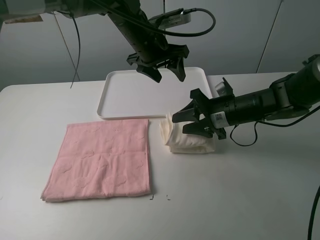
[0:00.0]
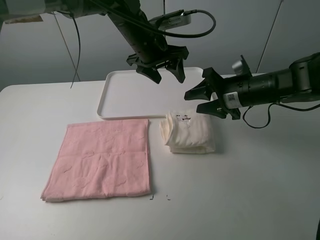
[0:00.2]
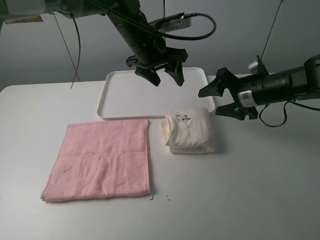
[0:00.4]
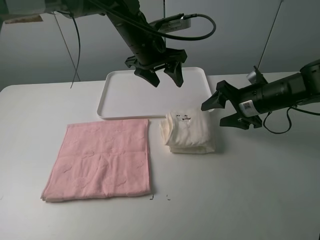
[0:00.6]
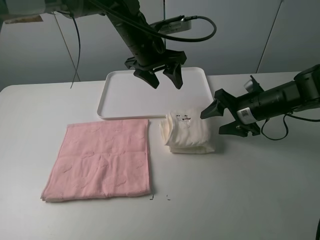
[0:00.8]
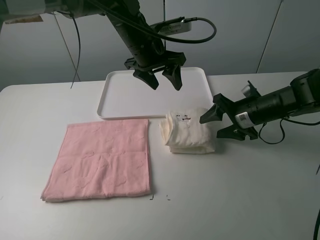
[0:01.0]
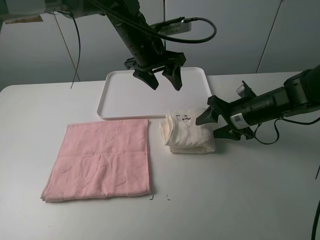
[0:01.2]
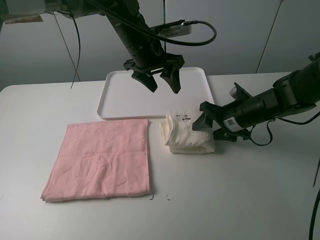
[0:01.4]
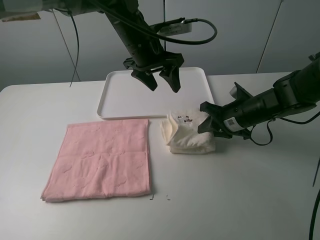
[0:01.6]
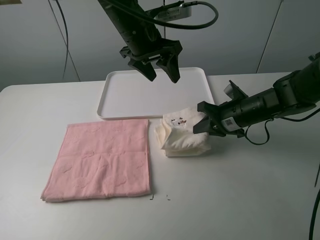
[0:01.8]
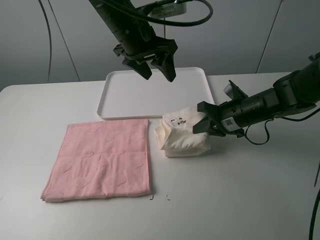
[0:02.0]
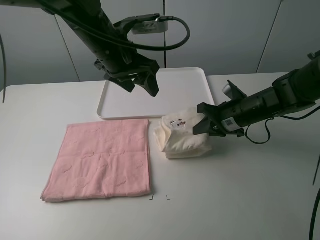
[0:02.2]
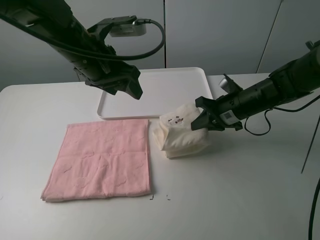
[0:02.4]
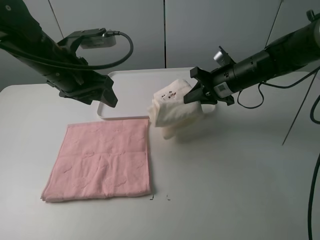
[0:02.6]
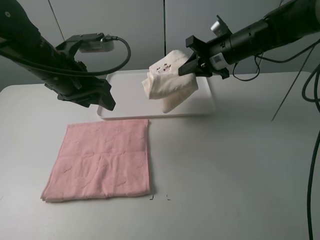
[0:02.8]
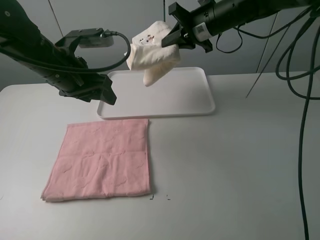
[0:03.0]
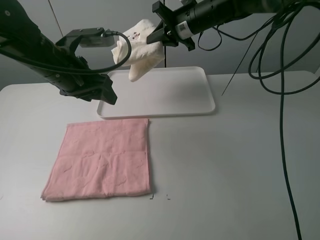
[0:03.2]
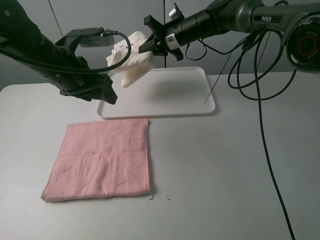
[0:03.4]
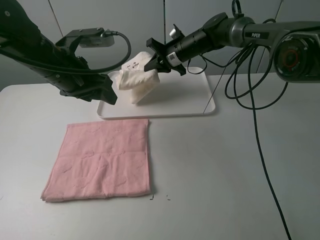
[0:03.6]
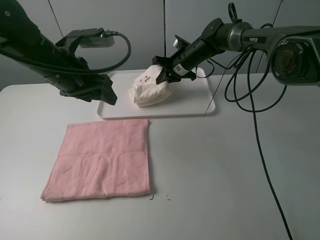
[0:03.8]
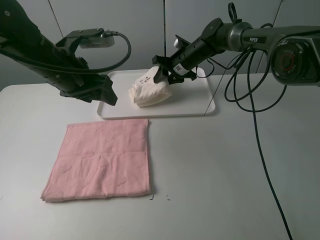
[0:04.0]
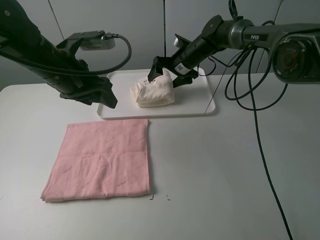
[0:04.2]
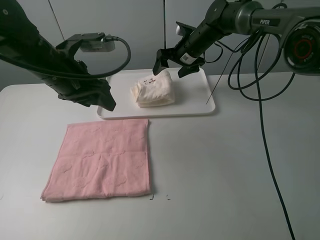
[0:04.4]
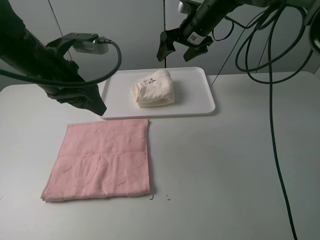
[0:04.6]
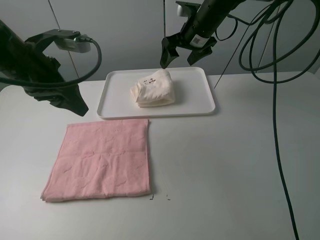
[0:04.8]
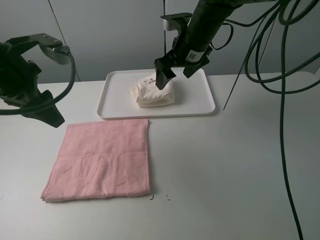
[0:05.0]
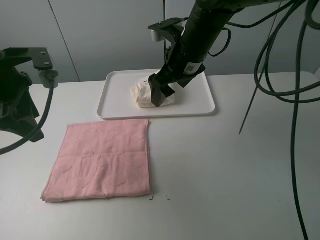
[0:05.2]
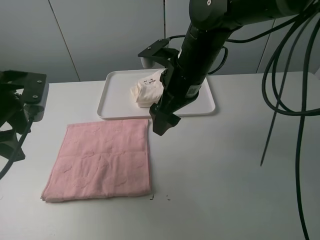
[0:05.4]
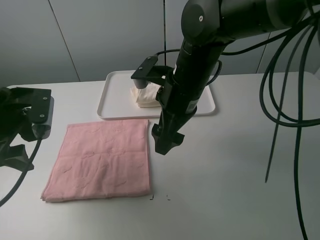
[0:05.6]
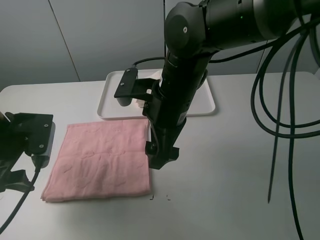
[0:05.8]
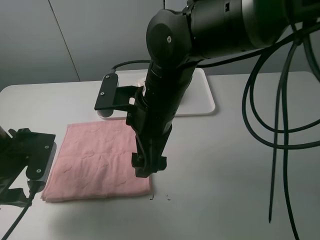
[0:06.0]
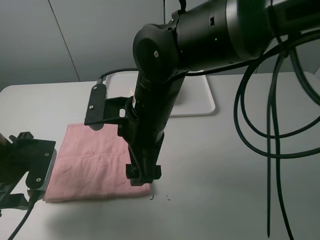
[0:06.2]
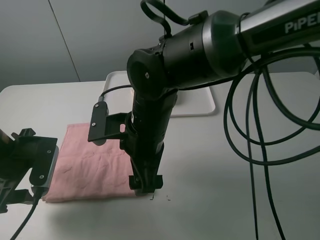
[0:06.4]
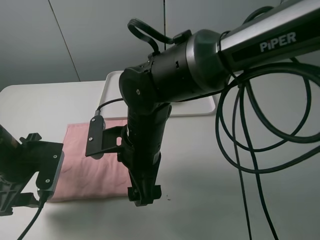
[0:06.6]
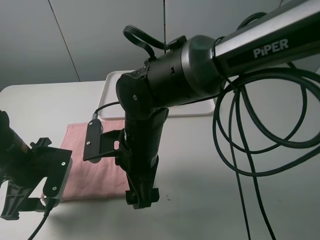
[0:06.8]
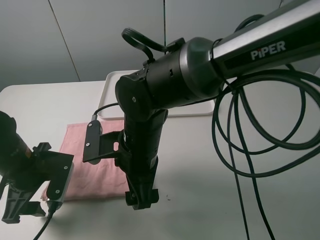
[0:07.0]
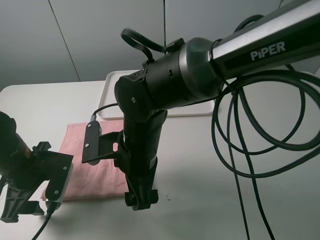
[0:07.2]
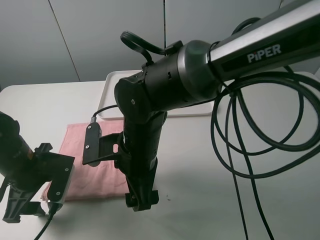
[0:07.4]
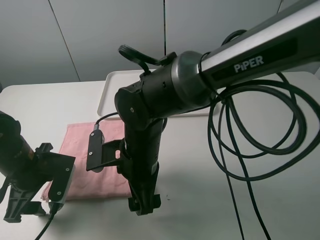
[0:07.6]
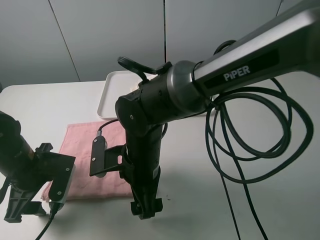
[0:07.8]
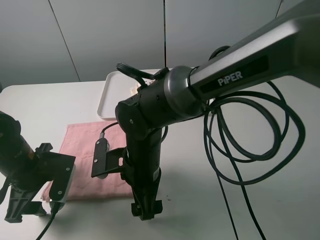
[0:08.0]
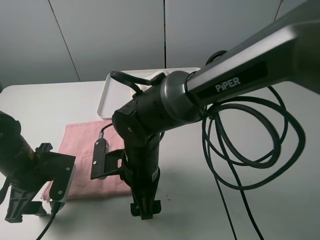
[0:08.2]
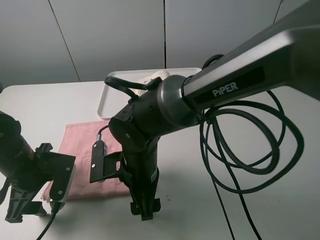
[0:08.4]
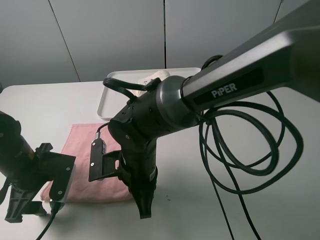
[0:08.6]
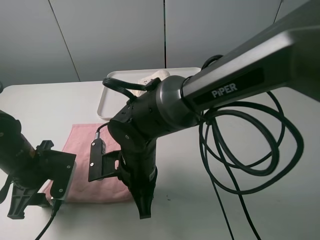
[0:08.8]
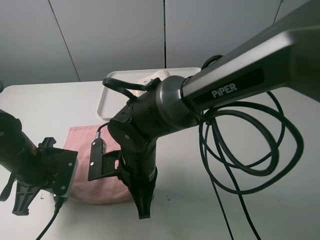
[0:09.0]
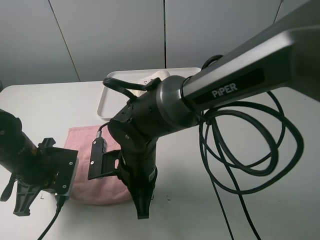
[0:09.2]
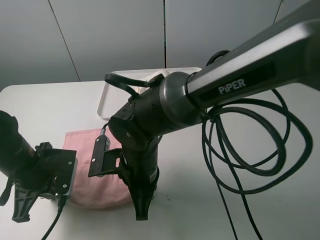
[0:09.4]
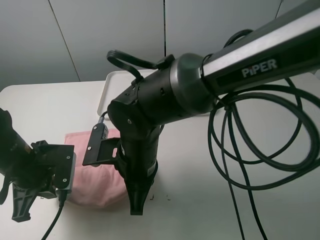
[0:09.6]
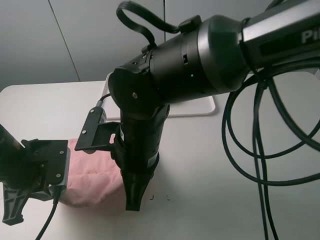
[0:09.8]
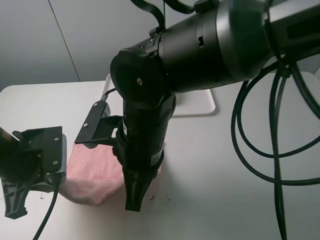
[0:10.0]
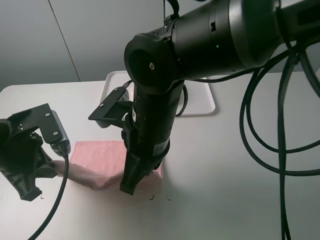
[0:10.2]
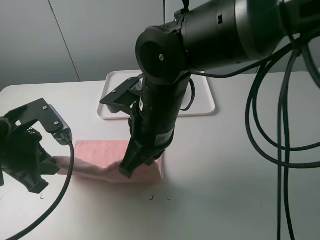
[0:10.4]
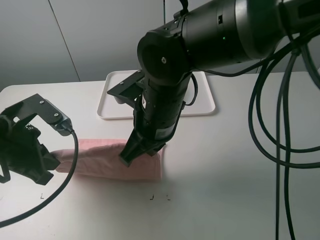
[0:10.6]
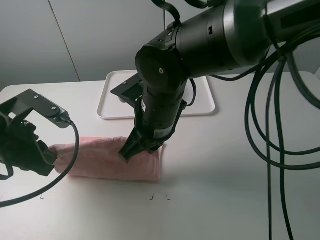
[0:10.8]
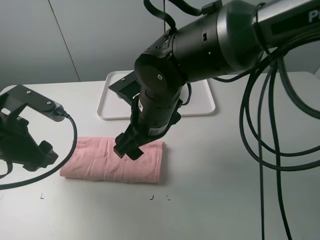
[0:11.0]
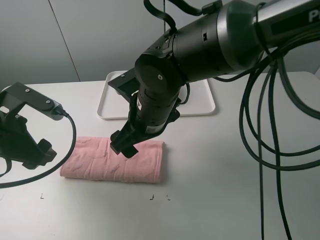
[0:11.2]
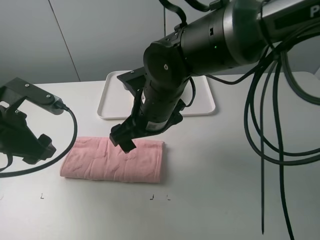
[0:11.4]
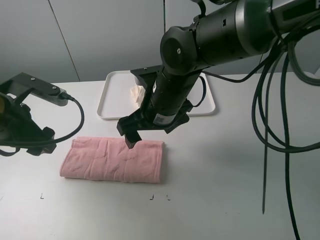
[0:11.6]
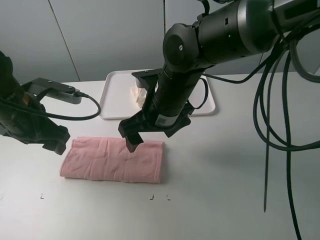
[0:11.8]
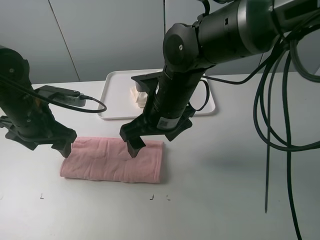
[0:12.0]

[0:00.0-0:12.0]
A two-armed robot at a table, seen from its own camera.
Task of the whole recording: fold one of the towels by two grippers and place it on the tray,then fold another towel by two grippers and place it on the folded towel.
Step, 0:00.2 to 0:01.6: Grasp the white towel with the right gripper.
Step, 0:01.8 to 0:04.4: Move the white towel to the plate with the right gripper.
Step, 0:04.6 to 0:09.4: Grasp the pink towel with the left gripper.
Step, 0:09.6 to 0:11.2: Fold the pink towel upwards with the left gripper.
0:00.0 to 0:01.6: The right gripper closes its fingers.
0:01.6 to 0:03.0: The left gripper travels to the left and backward by roughly 15 cm. Meanwhile the right gripper is displaced upward, forward and to the left by about 20 cm.
0:03.0 to 0:04.4: The right gripper shifts some 10 cm downward and forward, and opens its fingers.
0:04.4 to 0:06.0: The right gripper shifts some 30 cm backward; the left gripper moves backward, to the left and downward, some 15 cm.
0:06.0 to 0:07.6: The left gripper is displaced downward by roughly 5 cm. The right gripper shifts some 10 cm downward.
0:07.6 to 0:09.0: The left gripper closes its fingers, while the right gripper closes its fingers.
0:09.0 to 0:10.4: The two grippers go roughly 10 cm upward.
0:10.4 to 0:12.0: The left gripper heads forward, covering roughly 10 cm, and opens its fingers; the right gripper changes place by about 5 cm, and opens up.

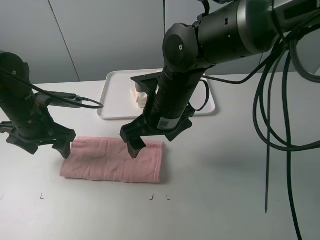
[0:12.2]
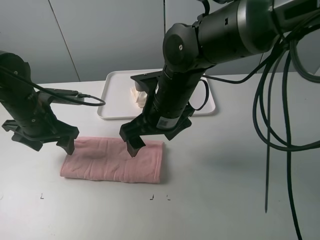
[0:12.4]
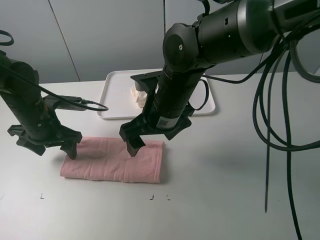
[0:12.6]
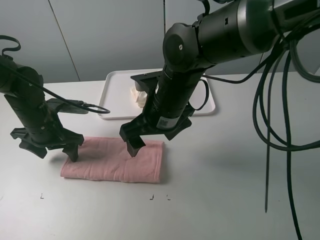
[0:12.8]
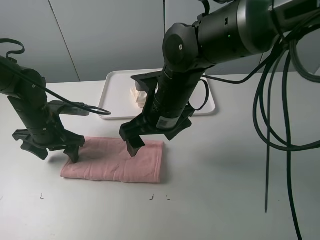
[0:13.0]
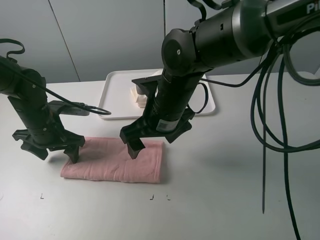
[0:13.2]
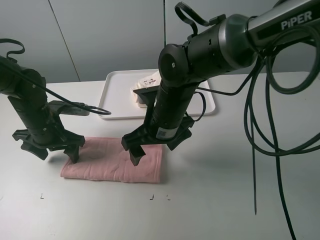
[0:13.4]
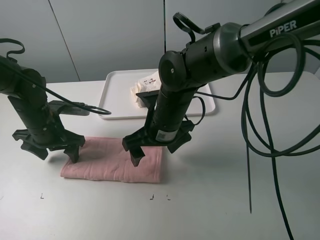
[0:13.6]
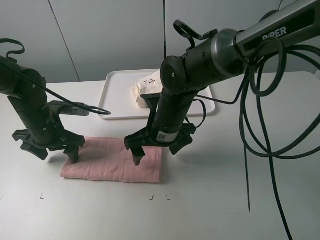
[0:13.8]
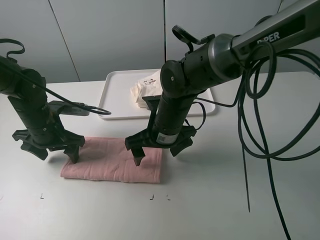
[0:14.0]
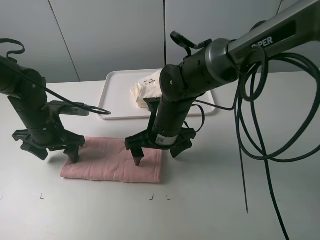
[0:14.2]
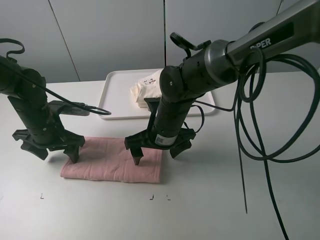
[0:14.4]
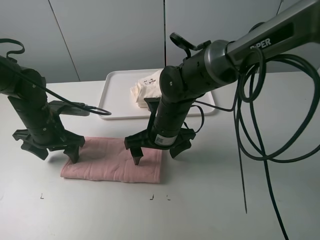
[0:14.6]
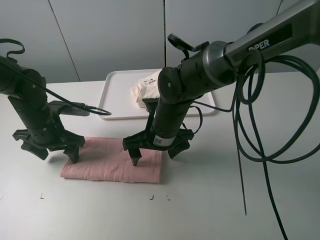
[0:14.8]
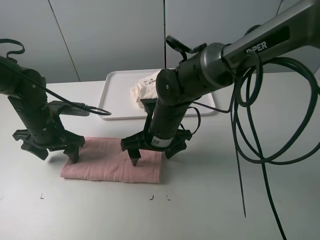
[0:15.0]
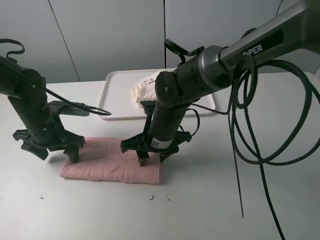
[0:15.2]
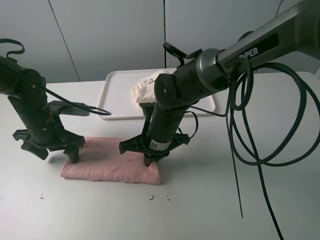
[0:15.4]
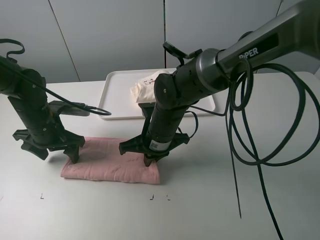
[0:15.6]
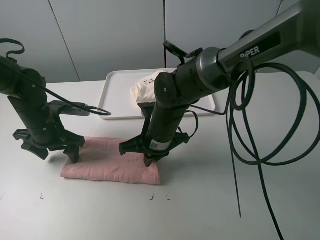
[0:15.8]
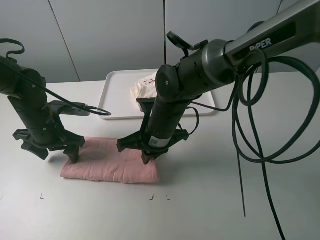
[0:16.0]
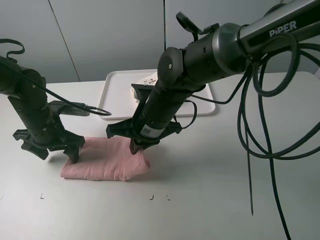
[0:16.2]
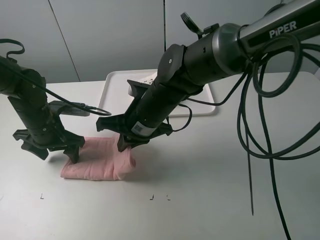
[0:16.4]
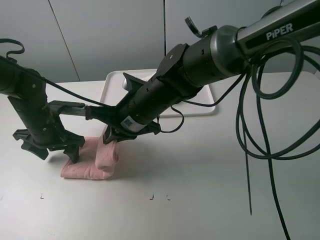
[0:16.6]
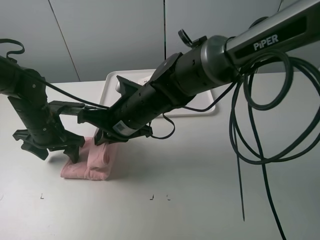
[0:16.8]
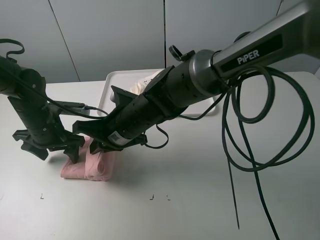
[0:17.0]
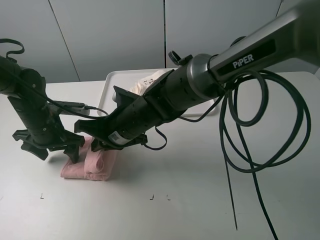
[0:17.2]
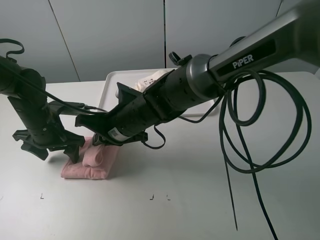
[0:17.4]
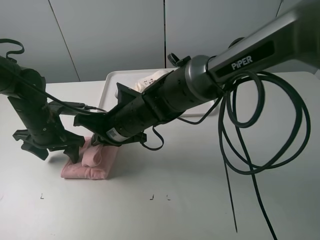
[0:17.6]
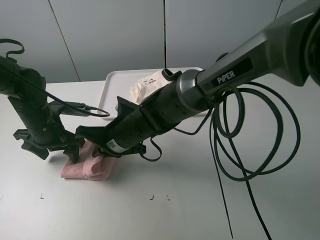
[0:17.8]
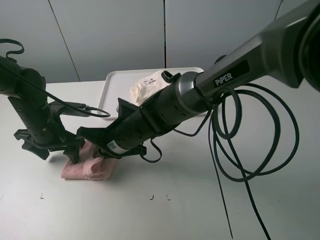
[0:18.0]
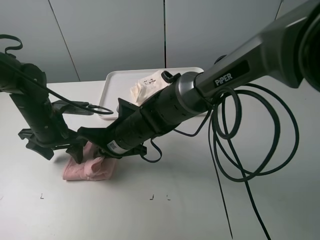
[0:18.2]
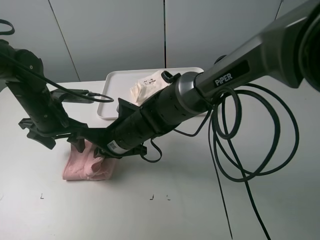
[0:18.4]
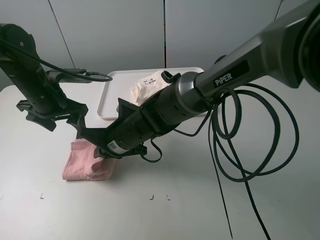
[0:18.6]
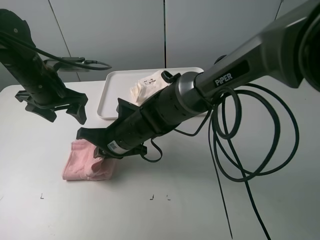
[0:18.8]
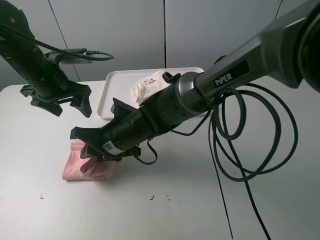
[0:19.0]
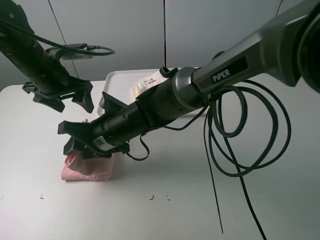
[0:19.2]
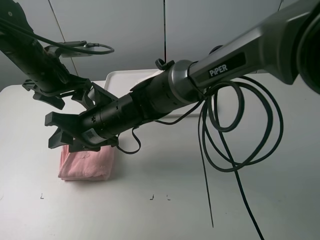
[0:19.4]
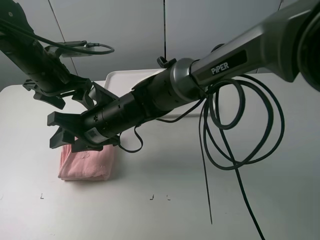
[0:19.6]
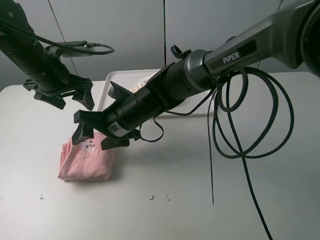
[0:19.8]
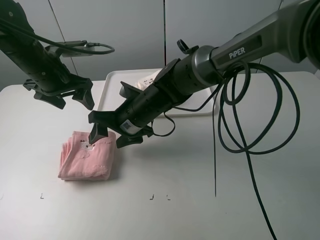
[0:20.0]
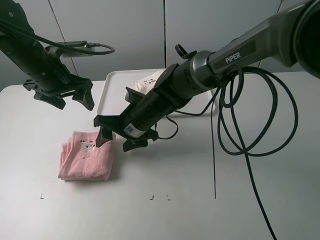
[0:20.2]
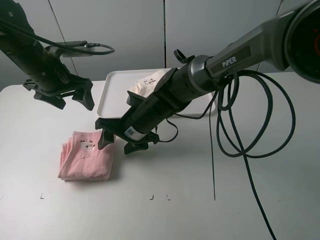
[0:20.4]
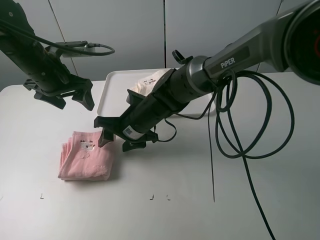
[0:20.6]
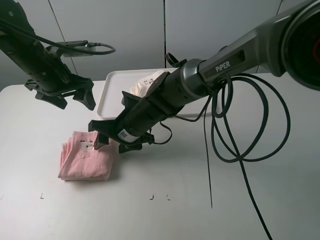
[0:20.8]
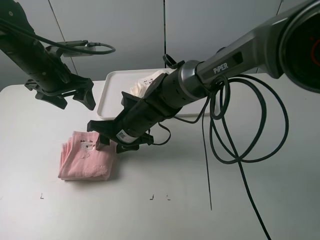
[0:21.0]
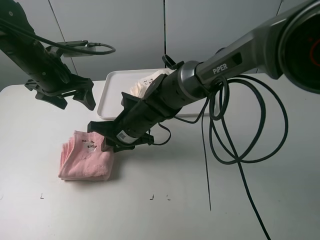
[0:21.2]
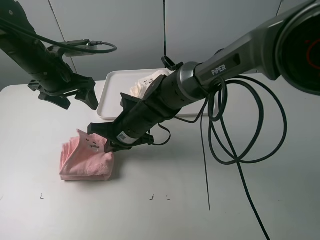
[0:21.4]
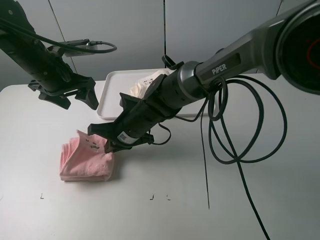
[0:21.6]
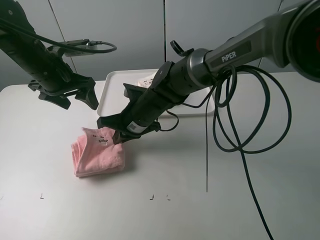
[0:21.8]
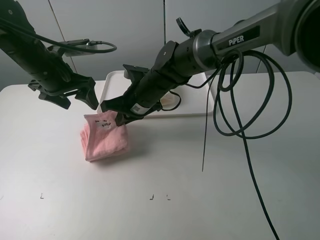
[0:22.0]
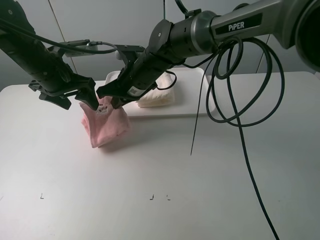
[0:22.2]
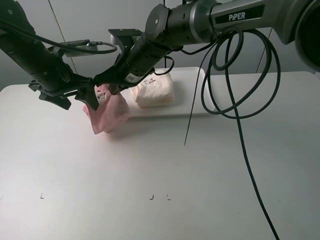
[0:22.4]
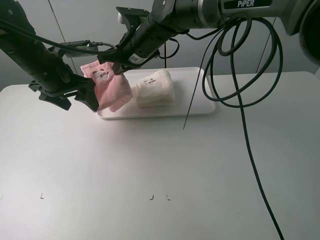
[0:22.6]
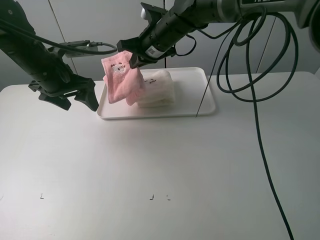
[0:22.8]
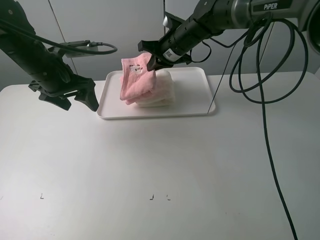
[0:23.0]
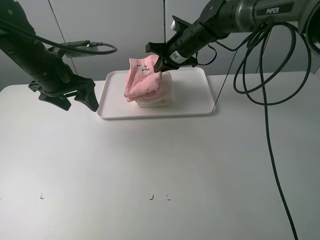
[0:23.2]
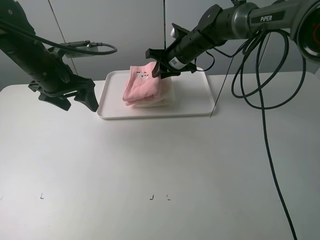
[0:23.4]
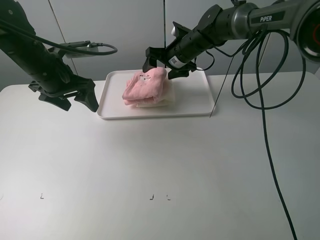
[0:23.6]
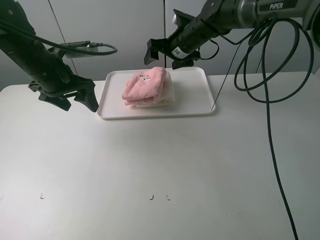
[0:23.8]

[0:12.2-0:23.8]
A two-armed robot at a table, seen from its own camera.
Task of the whole recording: fold one of the towels by two grippers and place it on the tray,then fold another towel by two grippers and place it on the folded towel.
Step, 0:13.2 to 0:15.6: Grasp the pink towel with the right gripper.
Step, 0:15.8 to 0:19.4: Fold the pink towel from right to left with right gripper.
Step, 0:19.6 to 0:21.4: Grasp the pink towel with the right gripper.
0:13.6 to 0:15.0: The grippers move only a little.
0:15.0 to 0:16.6: The right gripper travels upward by some 5 cm, and closes up.
0:16.6 to 0:18.0: The right gripper moves downward, about 5 cm.
0:18.0 to 0:19.4: The left gripper moves upward, approximately 10 cm. Meanwhile the right gripper moves some 5 cm, and opens its fingers.
0:19.4 to 0:21.0: The right gripper changes place by approximately 5 cm.
0:21.0 to 0:22.4: The right gripper is displaced upward and forward by about 15 cm, and closes.
0:22.4 to 0:23.8: The right gripper moves to the right and forward, roughly 15 cm, and opens.
